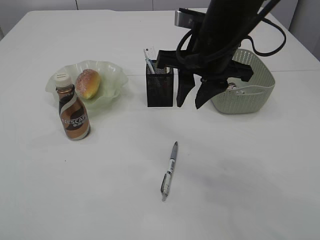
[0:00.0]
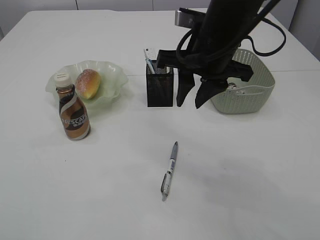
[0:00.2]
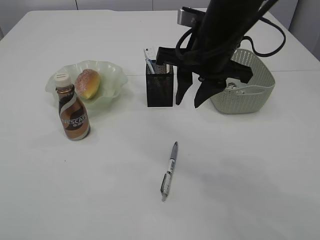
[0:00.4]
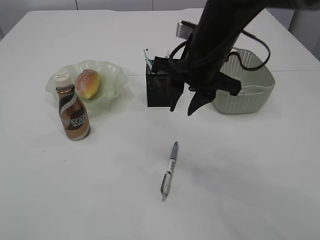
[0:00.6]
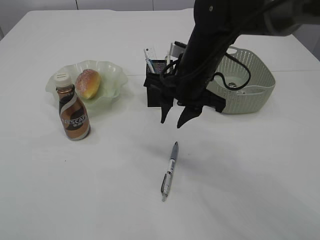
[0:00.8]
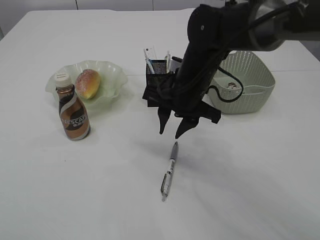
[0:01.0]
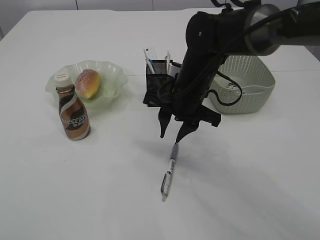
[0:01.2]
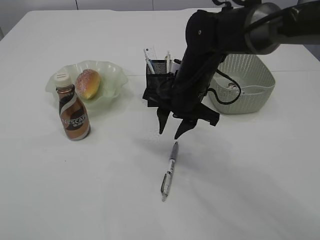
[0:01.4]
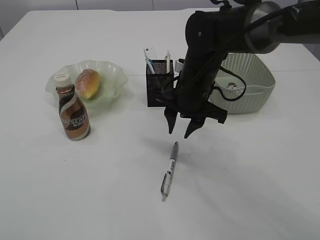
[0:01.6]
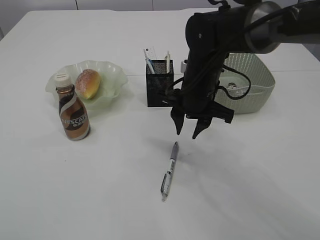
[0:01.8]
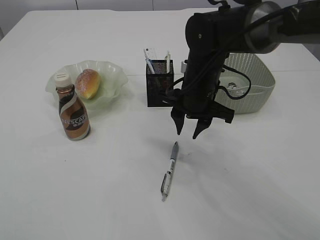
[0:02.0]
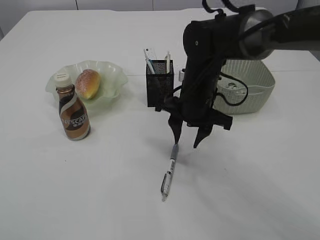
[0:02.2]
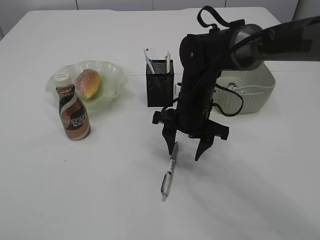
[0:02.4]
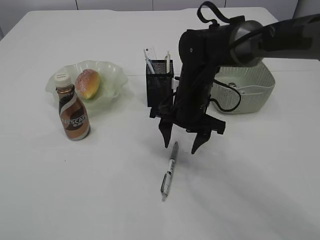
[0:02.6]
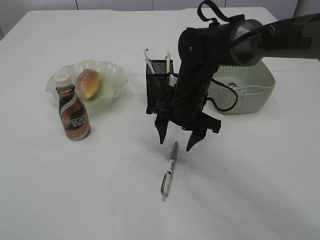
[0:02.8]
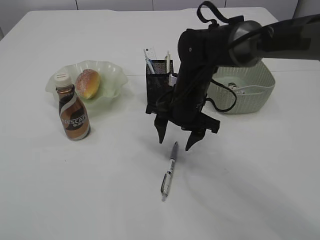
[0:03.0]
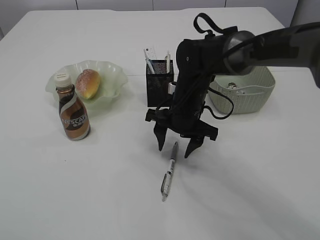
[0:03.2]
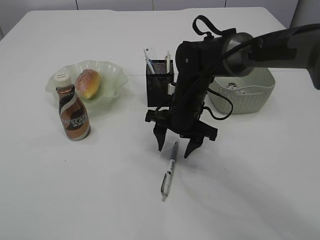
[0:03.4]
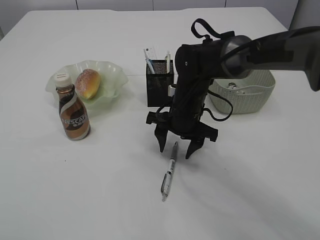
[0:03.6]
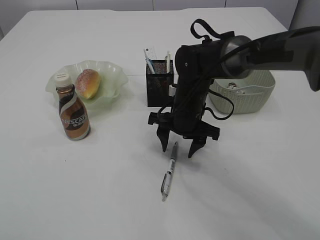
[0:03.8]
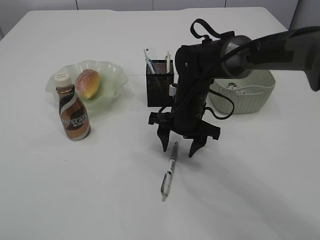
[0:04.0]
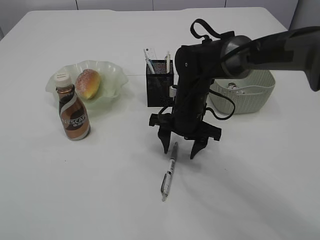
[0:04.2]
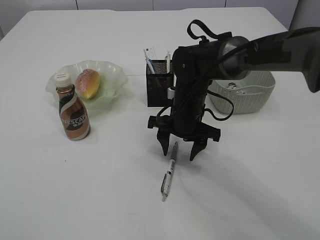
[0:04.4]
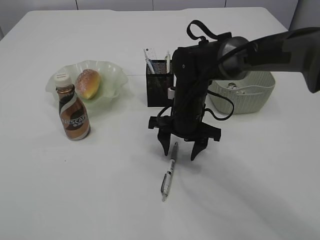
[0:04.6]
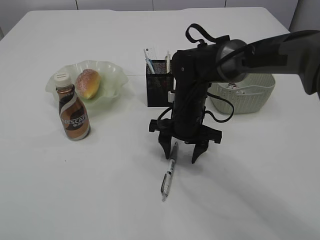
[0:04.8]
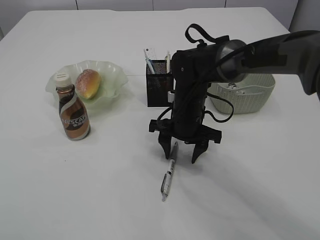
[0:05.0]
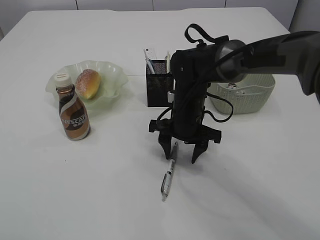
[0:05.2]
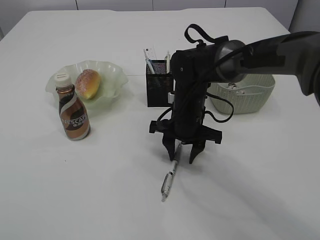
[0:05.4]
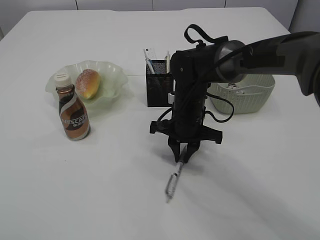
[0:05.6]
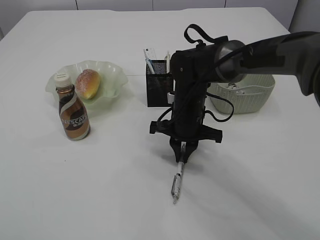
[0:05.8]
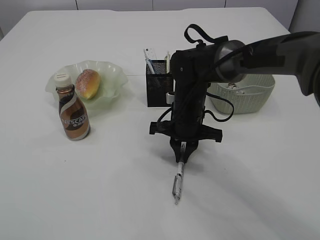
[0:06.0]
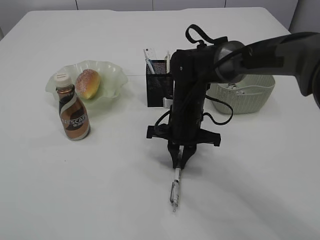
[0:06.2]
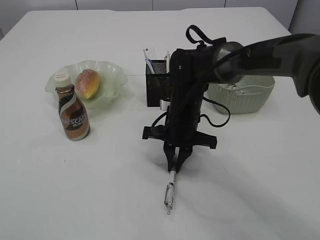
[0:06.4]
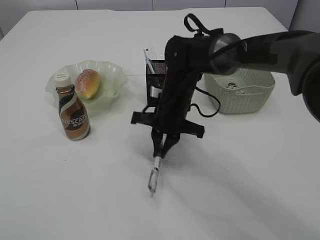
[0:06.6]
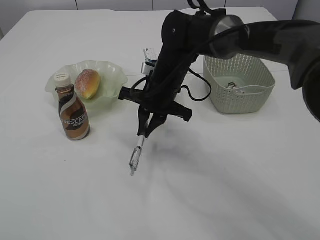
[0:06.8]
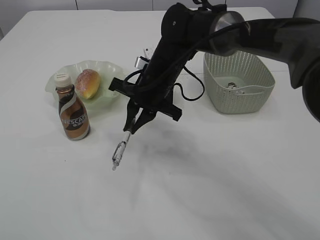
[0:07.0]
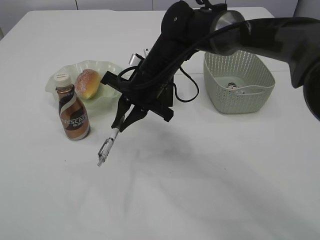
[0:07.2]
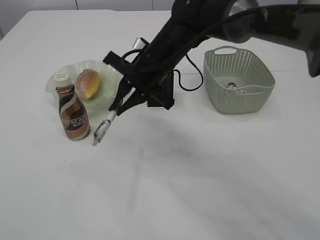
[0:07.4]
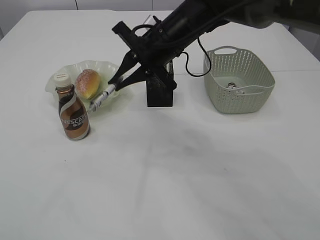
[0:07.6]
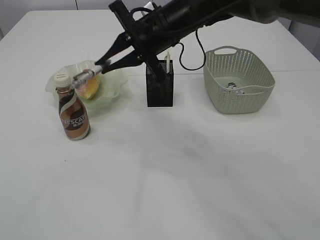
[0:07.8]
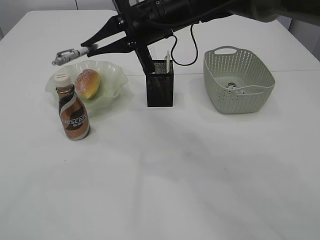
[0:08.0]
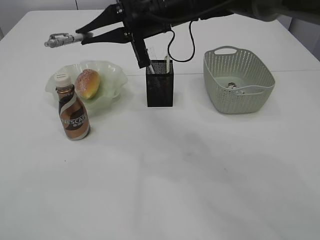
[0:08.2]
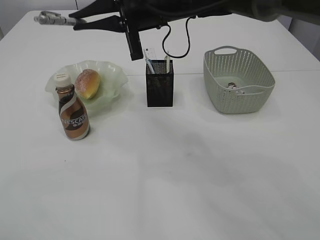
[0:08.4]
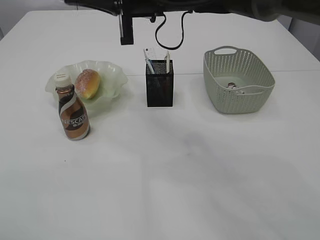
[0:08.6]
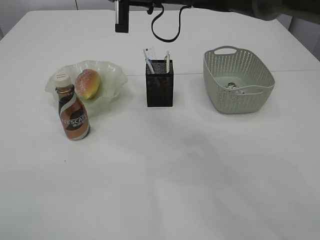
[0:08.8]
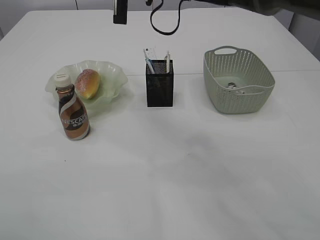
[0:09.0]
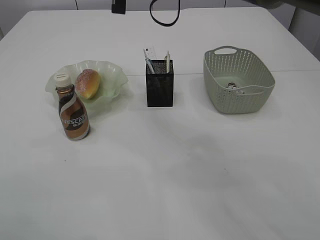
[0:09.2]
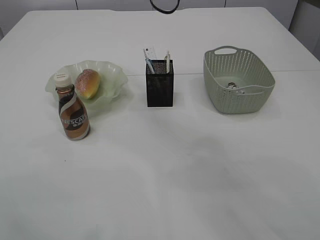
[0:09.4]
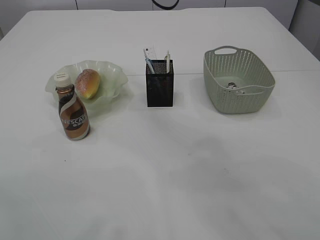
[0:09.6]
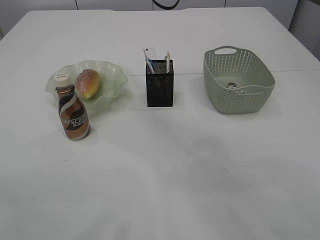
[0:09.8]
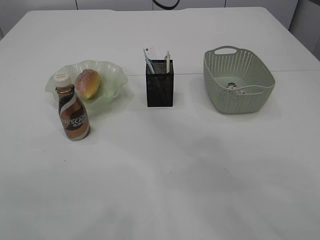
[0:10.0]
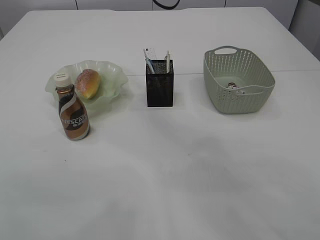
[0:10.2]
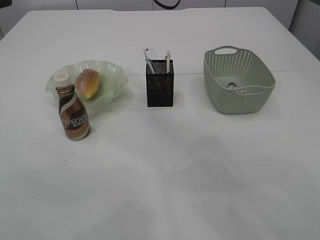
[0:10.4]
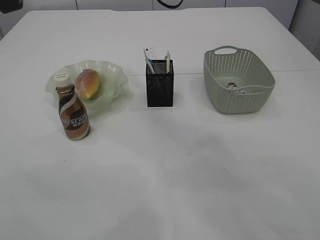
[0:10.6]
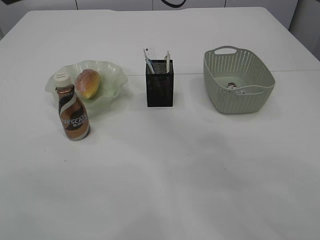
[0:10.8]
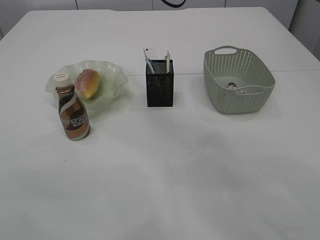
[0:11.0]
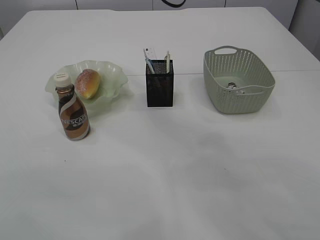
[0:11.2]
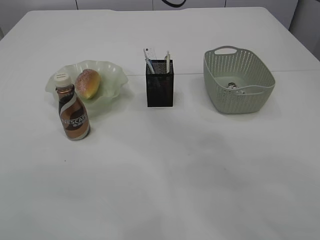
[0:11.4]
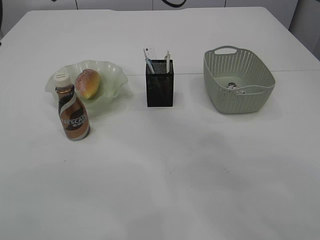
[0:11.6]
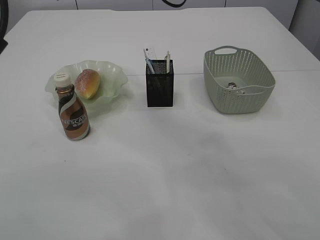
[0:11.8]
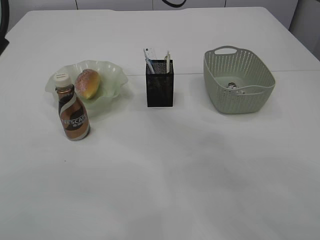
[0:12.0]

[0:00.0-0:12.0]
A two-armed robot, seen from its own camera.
Step, 0:00.0 to 0:07.2: Pick up the pen with right arm.
0:00.0 to 0:01.6: The right gripper shifts roughly 10 cm downward.
0:01.6 to 0:03.0: The right gripper opens up.
0:03.0 to 0:04.4: There are only small adjustments of the grippers.
0:04.4 to 0:06.0: The right gripper closes.
0:06.0 to 0:07.6: The right gripper moves upward, roughly 15 cm.
0:07.6 to 0:09.0: The left gripper moves approximately 5 cm. Meanwhile the right gripper travels upward by about 10 cm.
0:09.0 to 0:10.4: The left gripper goes approximately 10 cm forward.
0:10.4 to 0:12.0: The left gripper ends up some 5 cm from where it was.

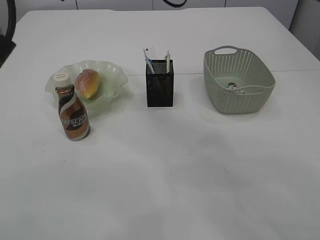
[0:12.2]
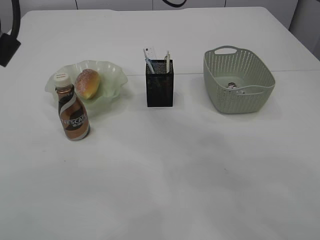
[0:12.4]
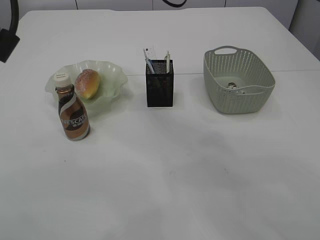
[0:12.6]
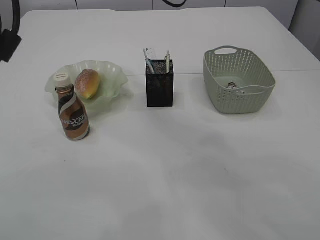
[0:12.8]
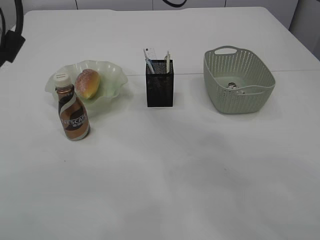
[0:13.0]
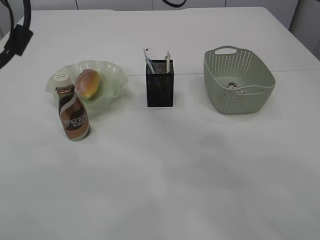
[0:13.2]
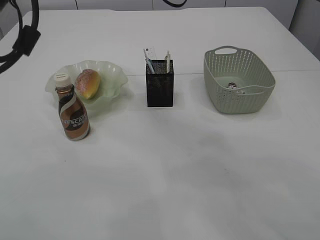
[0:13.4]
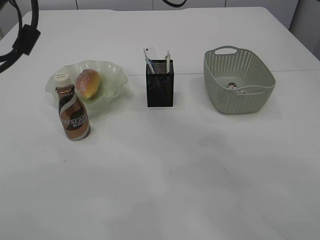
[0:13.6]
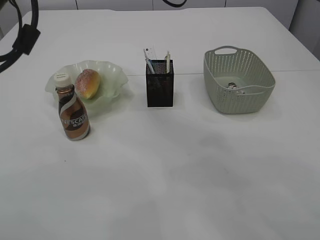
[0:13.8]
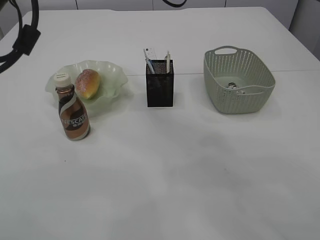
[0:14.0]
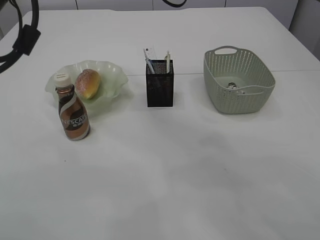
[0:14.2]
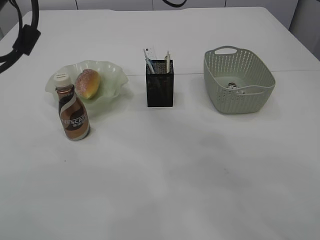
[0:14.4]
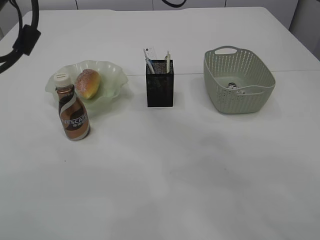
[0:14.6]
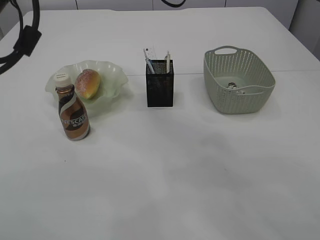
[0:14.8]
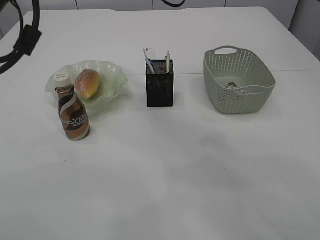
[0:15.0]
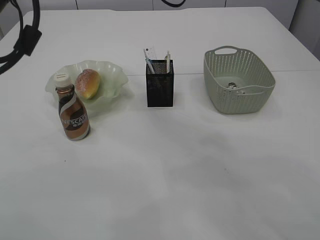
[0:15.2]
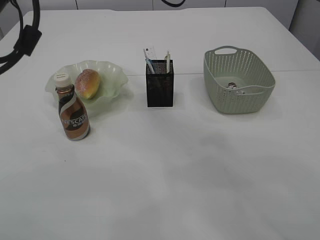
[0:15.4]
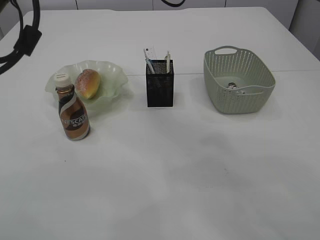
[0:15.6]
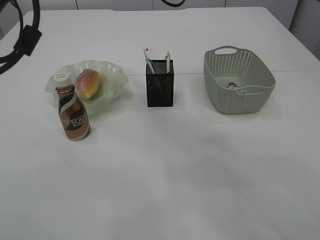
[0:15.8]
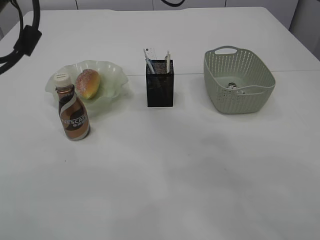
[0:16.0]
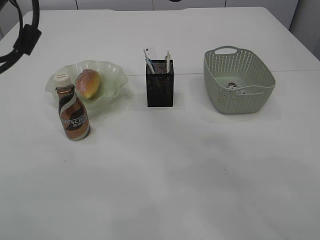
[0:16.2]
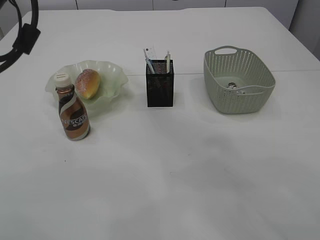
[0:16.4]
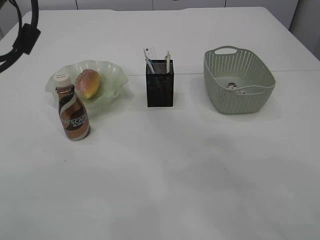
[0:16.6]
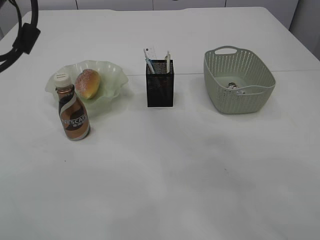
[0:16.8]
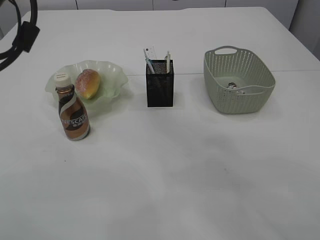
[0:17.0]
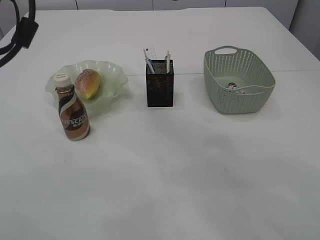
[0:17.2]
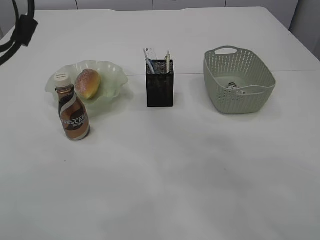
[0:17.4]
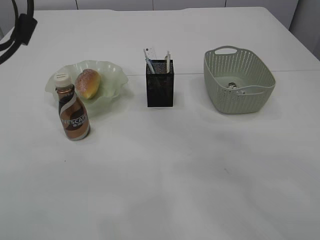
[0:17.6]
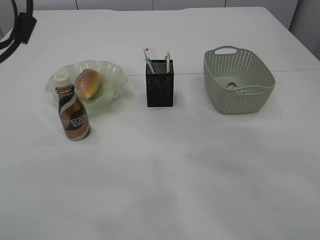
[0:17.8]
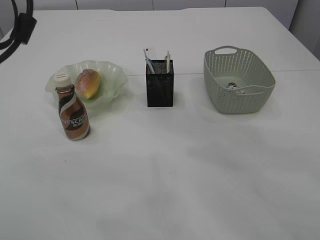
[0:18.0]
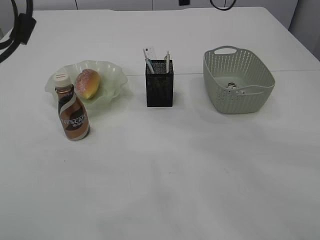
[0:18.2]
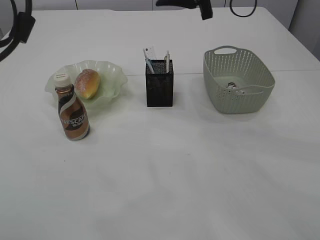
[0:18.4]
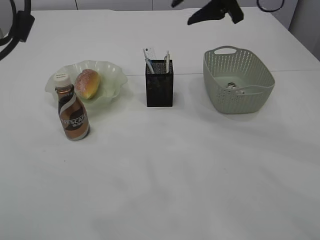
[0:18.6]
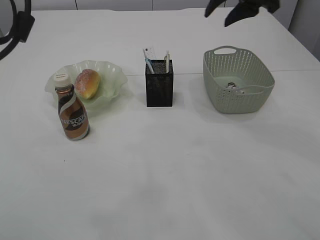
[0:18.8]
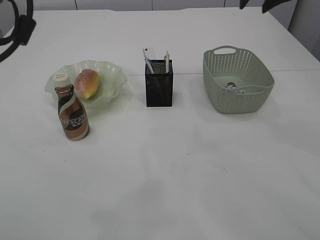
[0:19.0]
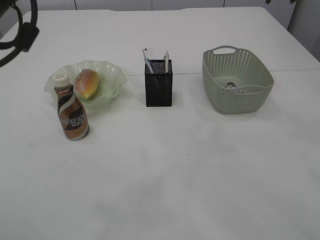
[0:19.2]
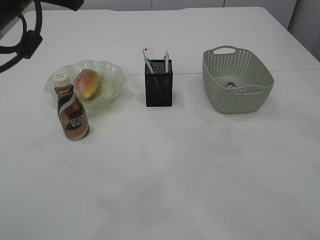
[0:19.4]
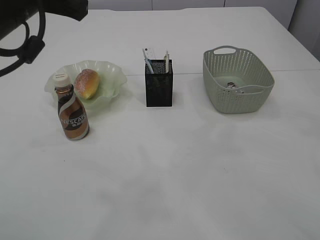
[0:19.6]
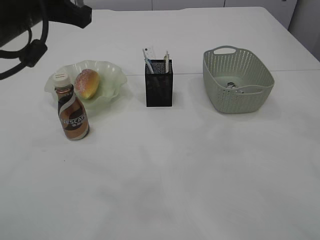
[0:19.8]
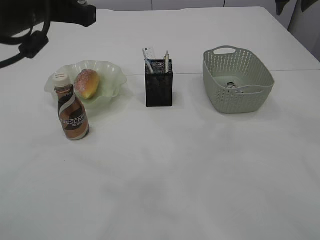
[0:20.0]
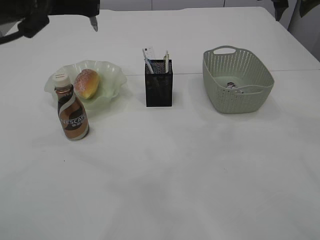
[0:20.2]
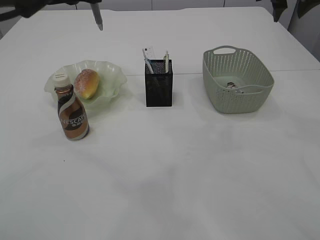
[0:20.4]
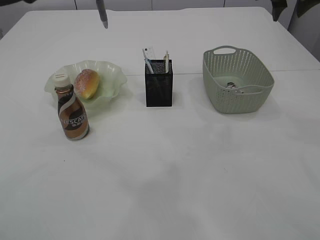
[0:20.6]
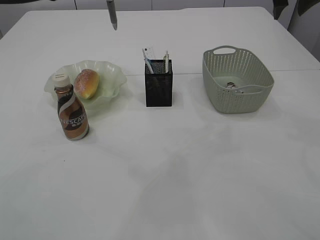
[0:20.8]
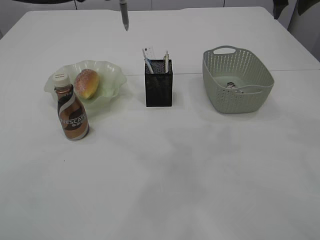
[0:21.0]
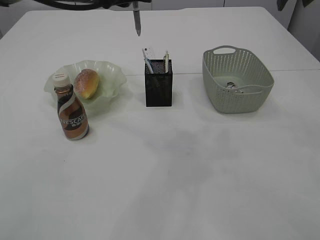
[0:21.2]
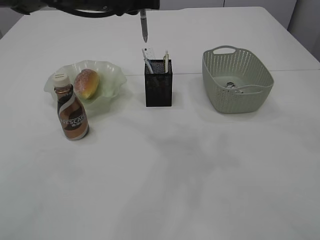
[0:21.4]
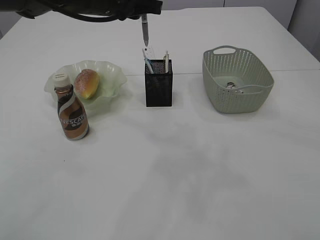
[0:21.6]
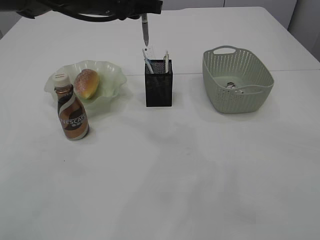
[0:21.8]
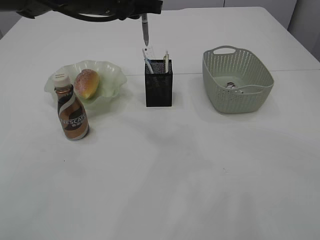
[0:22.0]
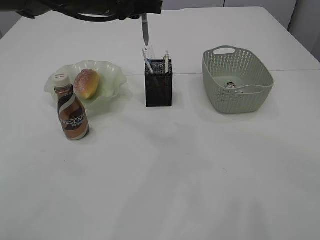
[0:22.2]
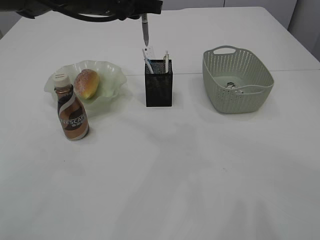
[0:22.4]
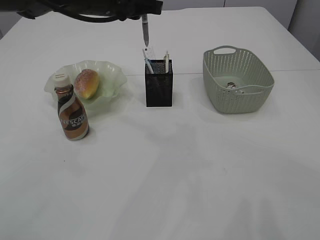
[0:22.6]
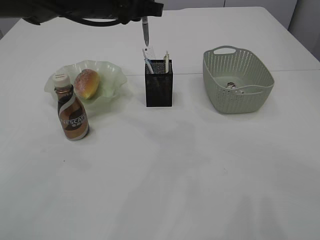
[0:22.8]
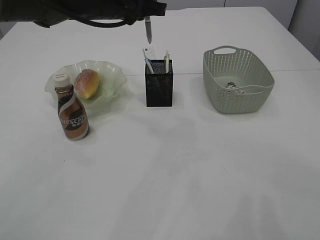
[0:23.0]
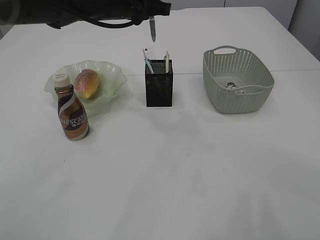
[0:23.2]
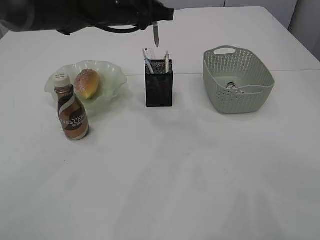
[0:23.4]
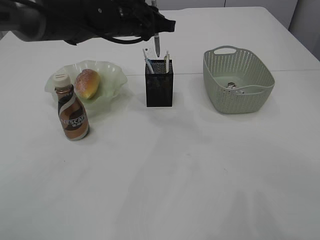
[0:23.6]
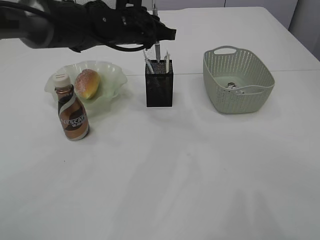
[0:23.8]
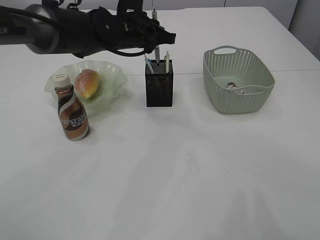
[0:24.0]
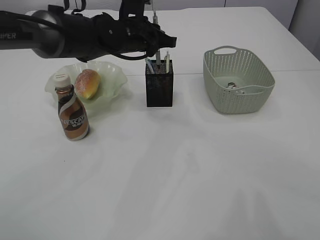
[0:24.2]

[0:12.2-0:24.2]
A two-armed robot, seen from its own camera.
0:12.2 to 0:13.8: The grippers stay close to where they were, moving slightly.
0:13.8 to 0:15.2: The left gripper closes up.
0:19.8 to 0:21.2: The left gripper goes approximately 10 cm forward and to the right.
0:21.2 to 0:22.6: The right gripper is displaced backward by some 20 cm.
0:22.6 to 0:24.2: The left gripper is displaced downward and forward by roughly 10 cm.
